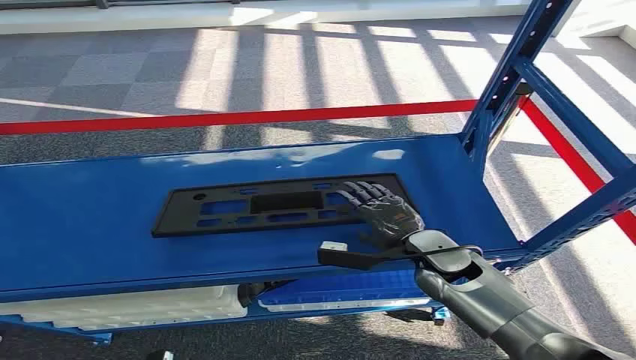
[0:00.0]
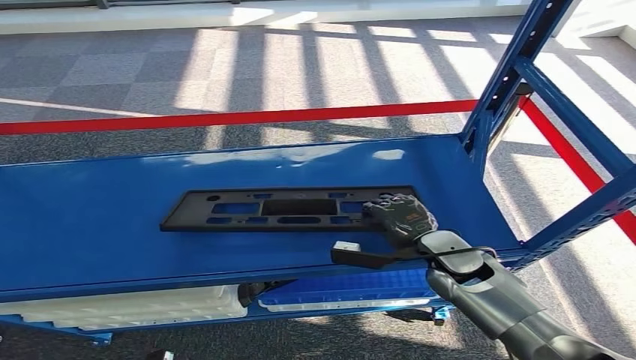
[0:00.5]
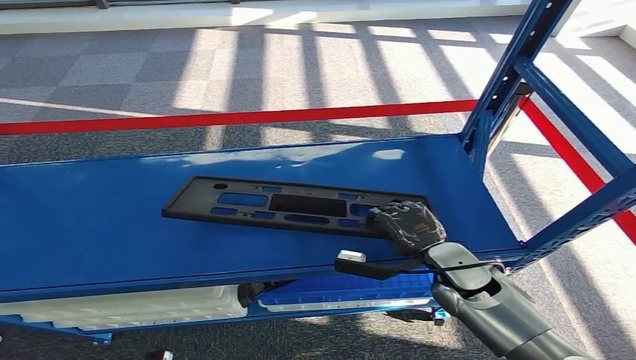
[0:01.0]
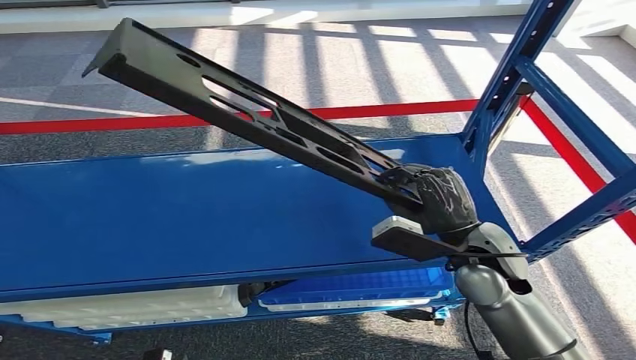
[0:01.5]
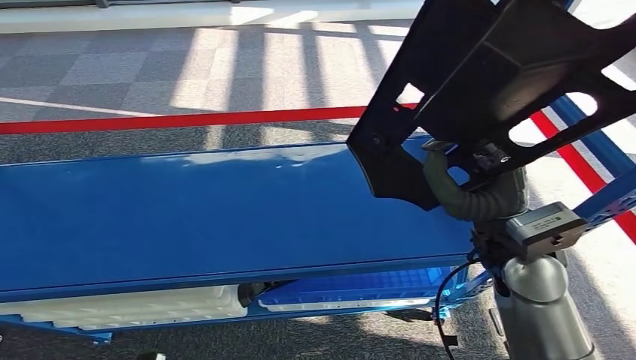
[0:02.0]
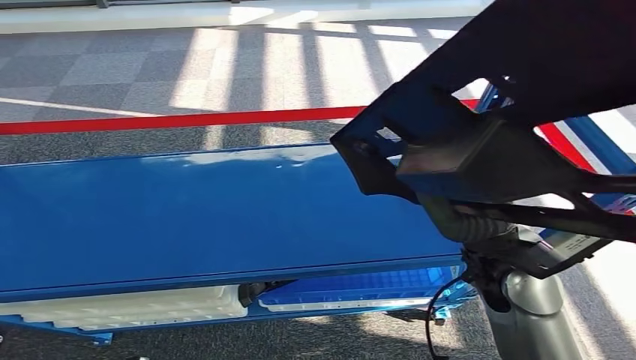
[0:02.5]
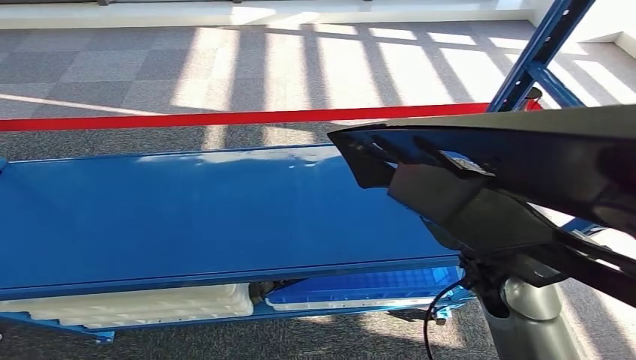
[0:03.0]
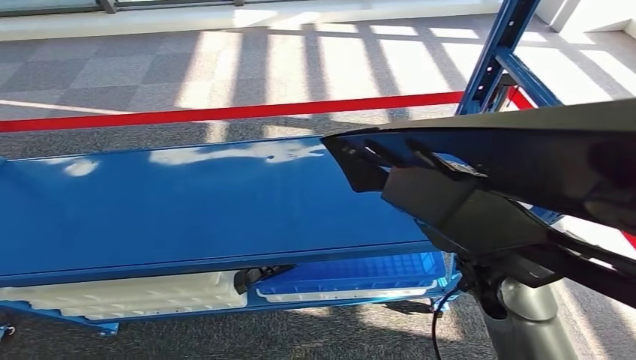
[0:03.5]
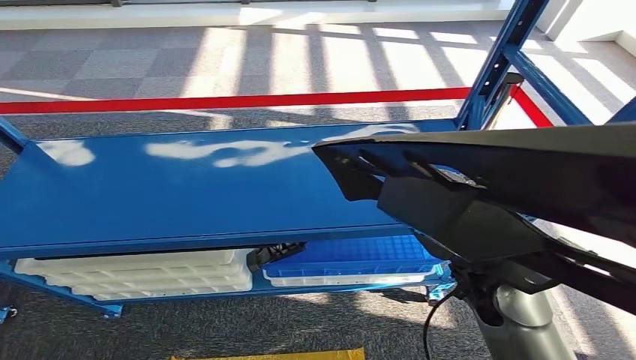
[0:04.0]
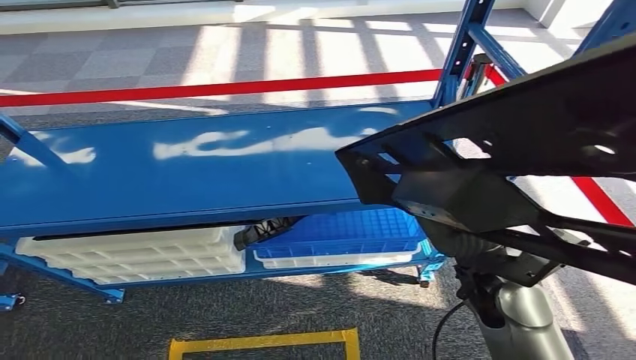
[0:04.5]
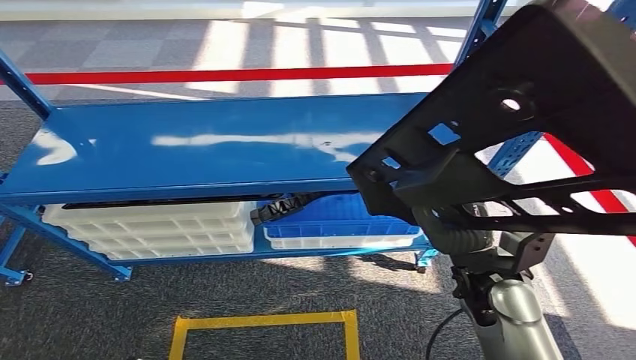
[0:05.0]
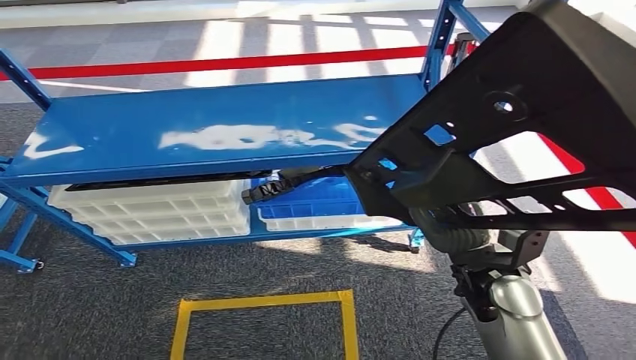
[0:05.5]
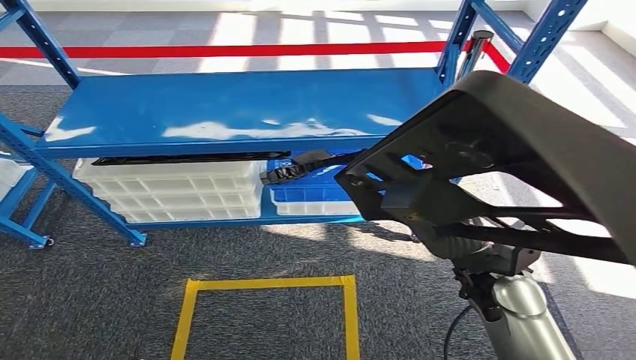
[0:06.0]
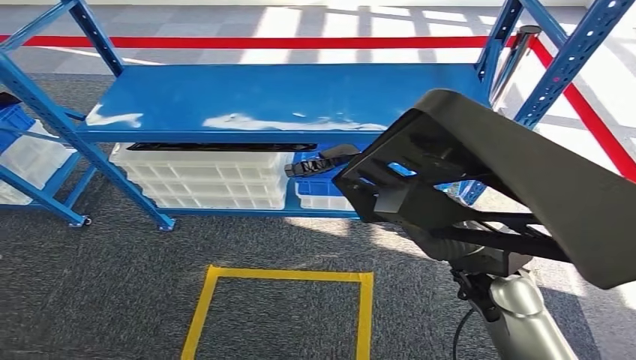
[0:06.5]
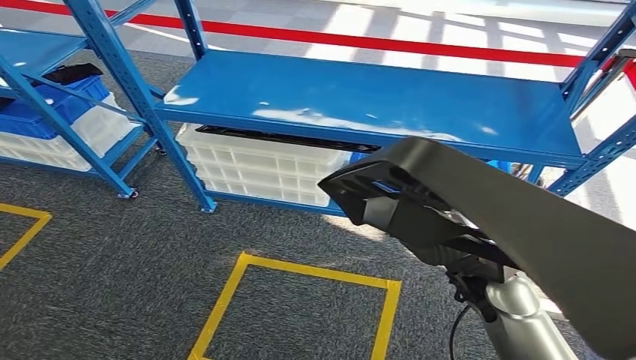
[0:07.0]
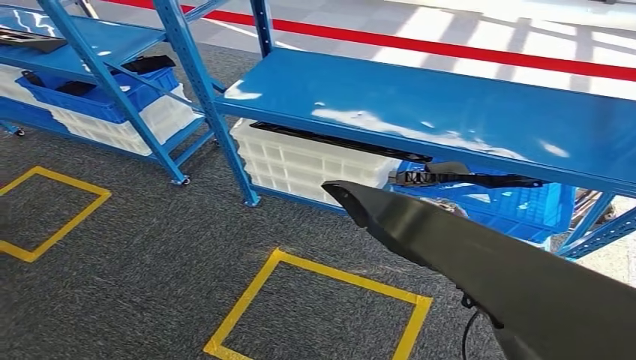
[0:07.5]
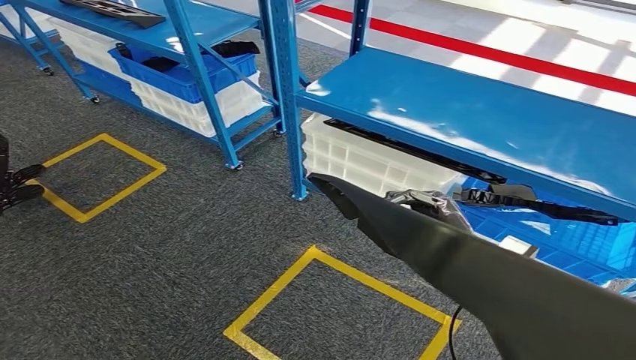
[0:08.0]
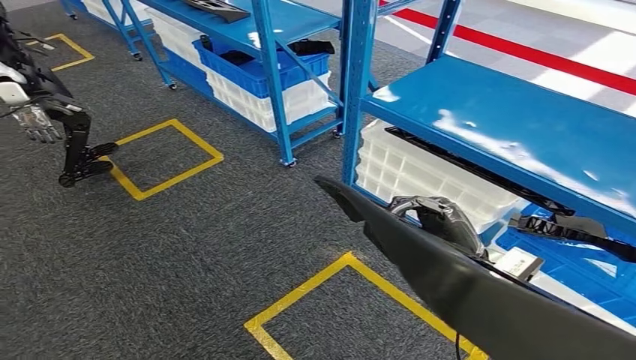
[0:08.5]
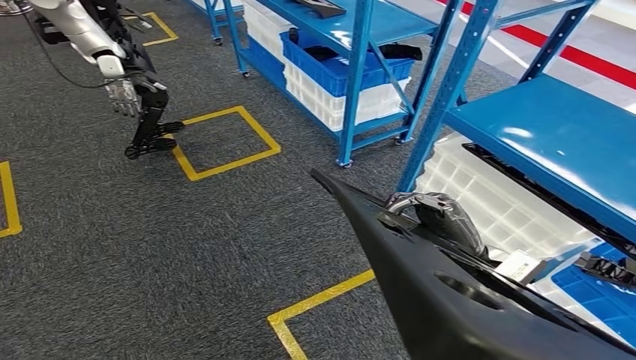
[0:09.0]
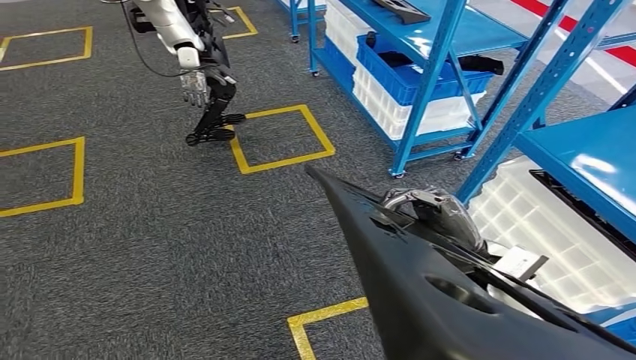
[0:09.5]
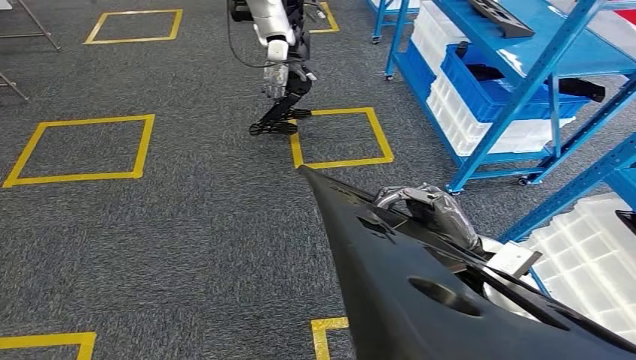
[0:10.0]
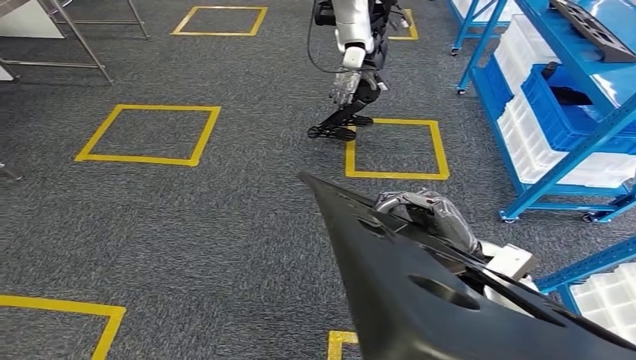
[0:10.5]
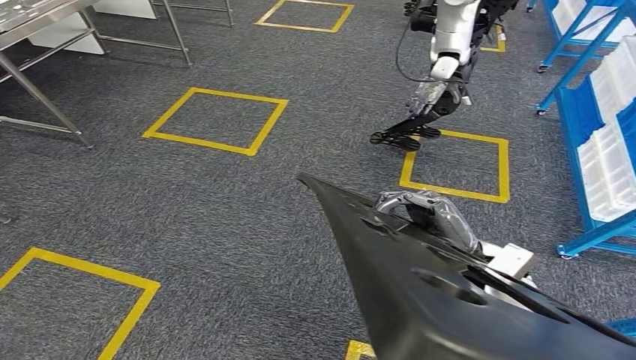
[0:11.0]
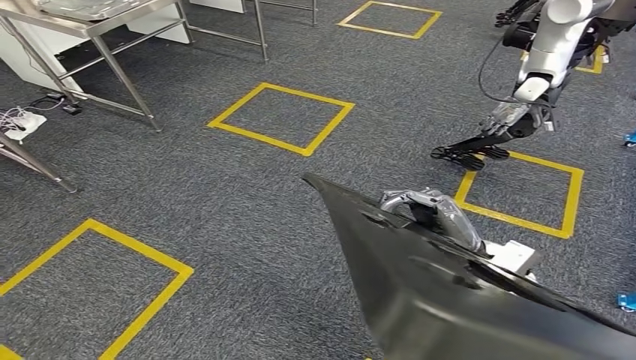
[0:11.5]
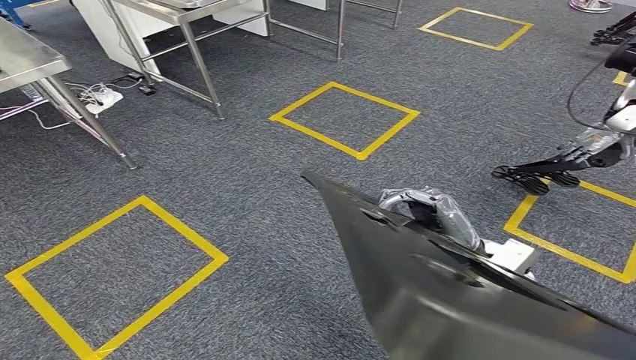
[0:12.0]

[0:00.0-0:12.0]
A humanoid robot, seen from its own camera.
Step, 0:00.0 to 0:02.5: Pick up the small component from the shelf.

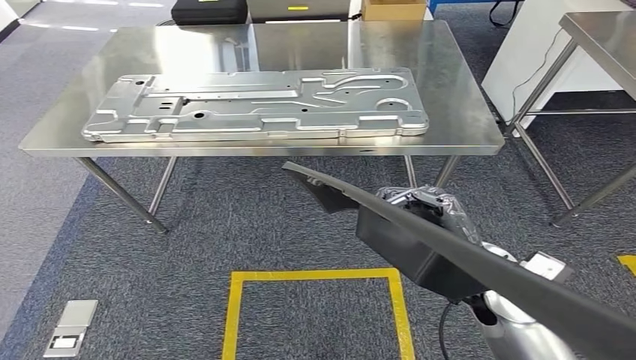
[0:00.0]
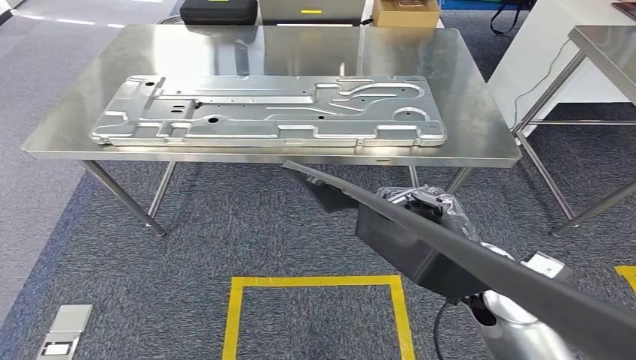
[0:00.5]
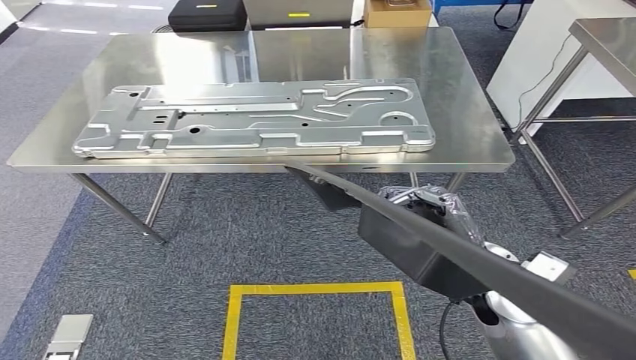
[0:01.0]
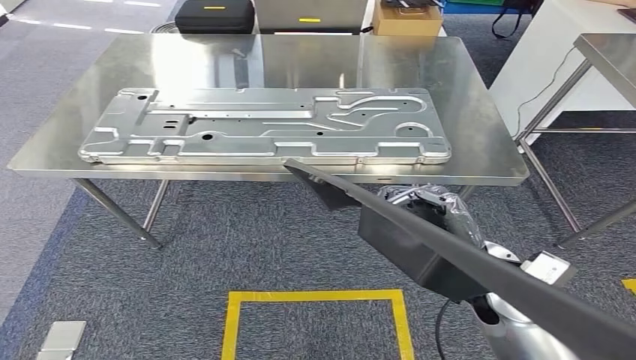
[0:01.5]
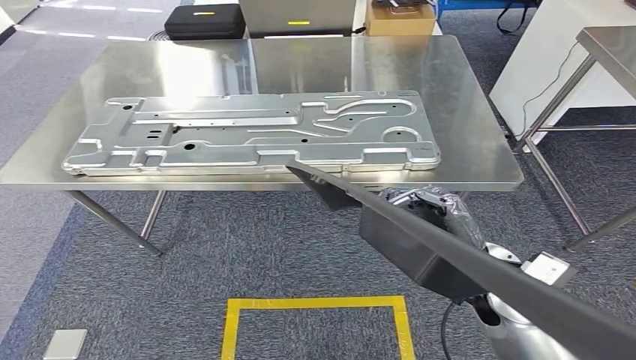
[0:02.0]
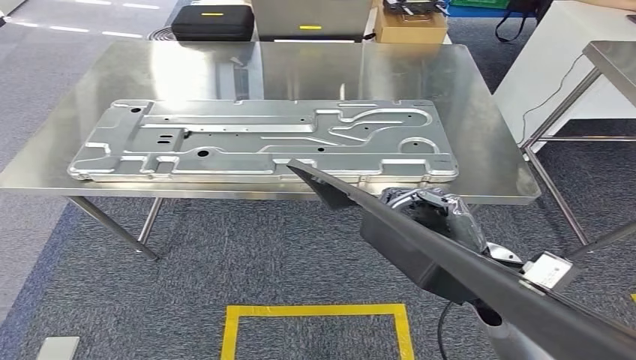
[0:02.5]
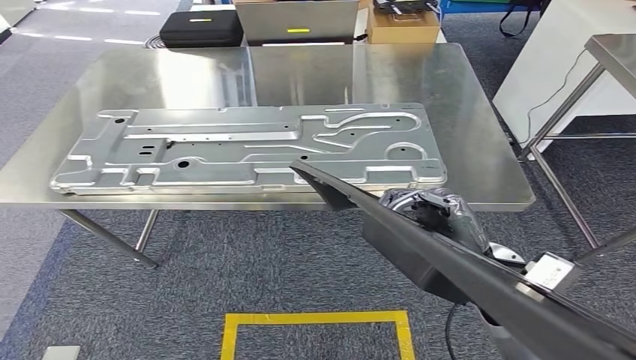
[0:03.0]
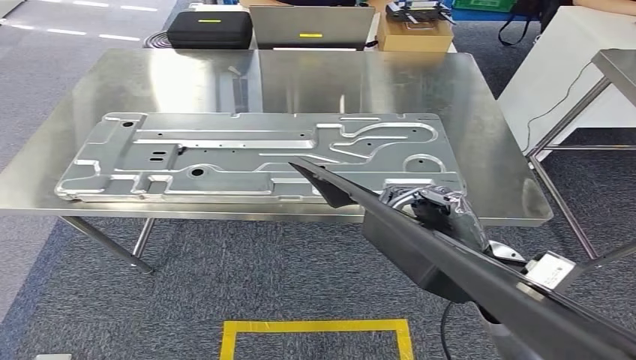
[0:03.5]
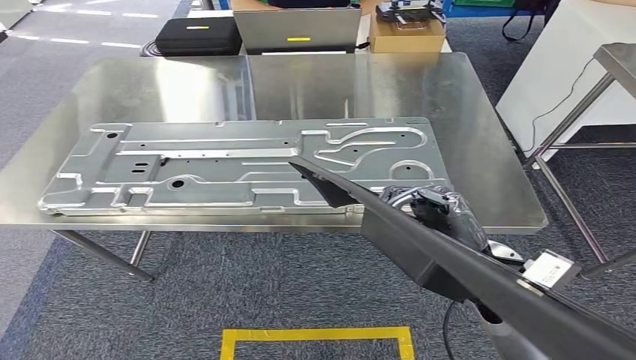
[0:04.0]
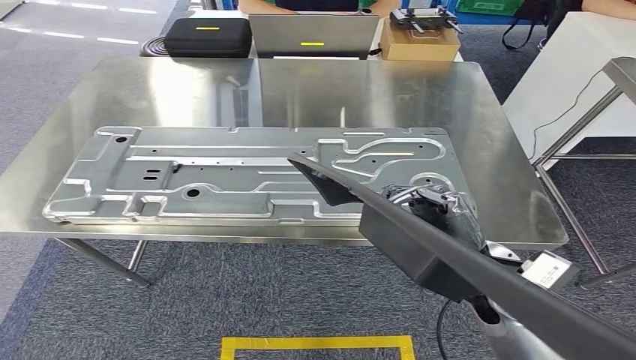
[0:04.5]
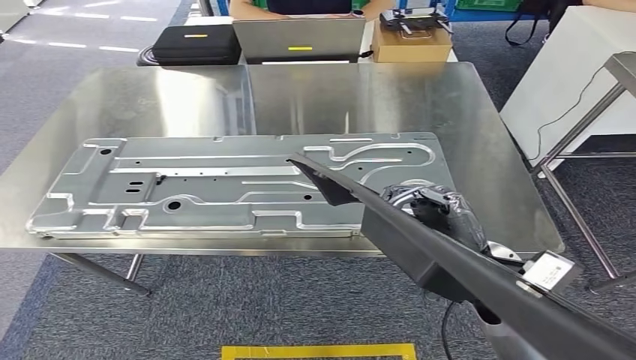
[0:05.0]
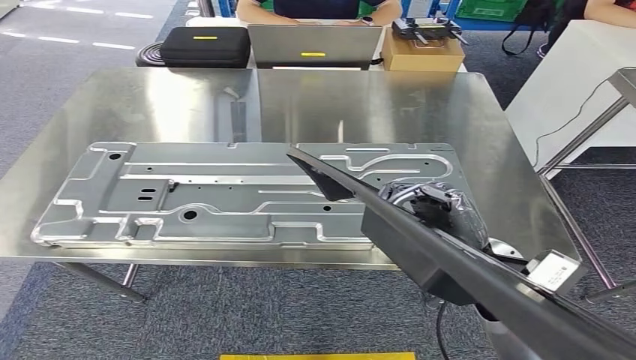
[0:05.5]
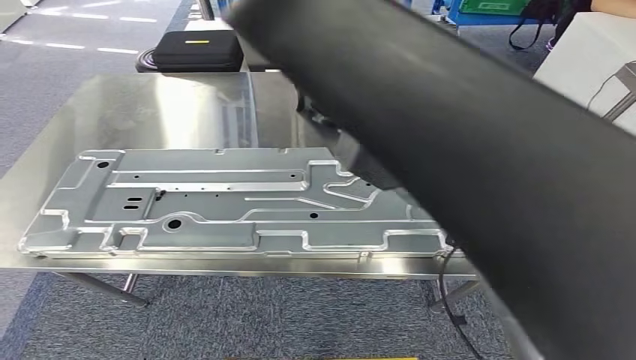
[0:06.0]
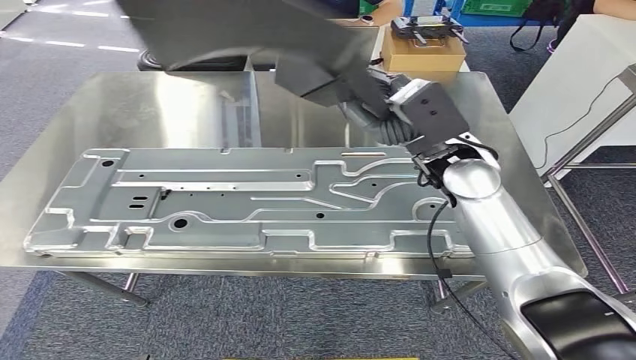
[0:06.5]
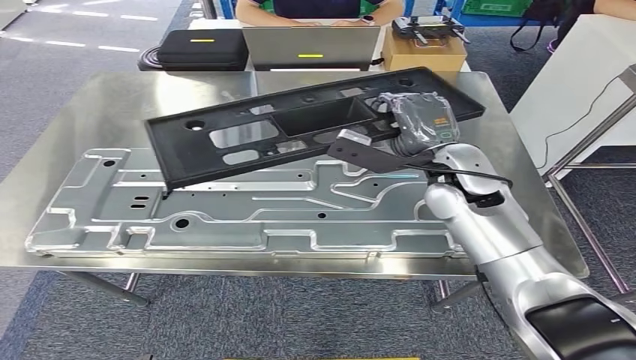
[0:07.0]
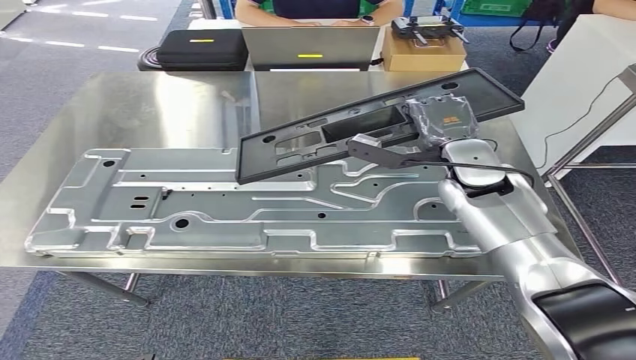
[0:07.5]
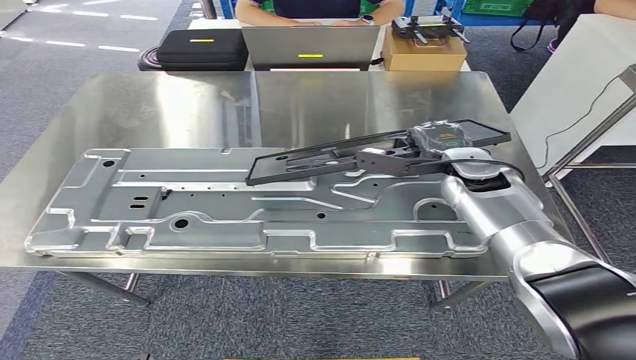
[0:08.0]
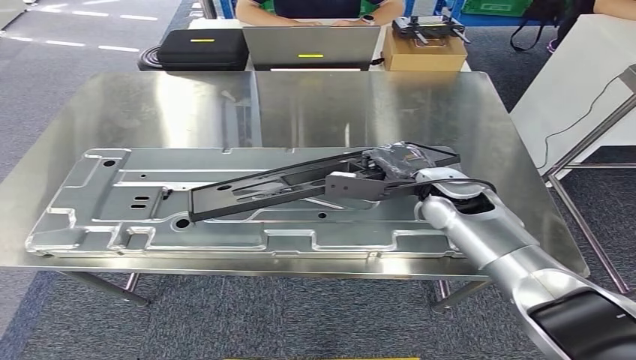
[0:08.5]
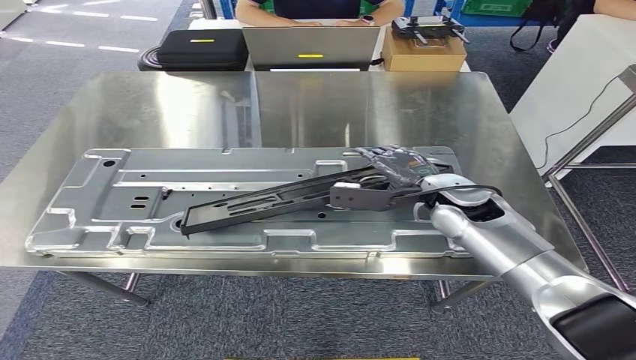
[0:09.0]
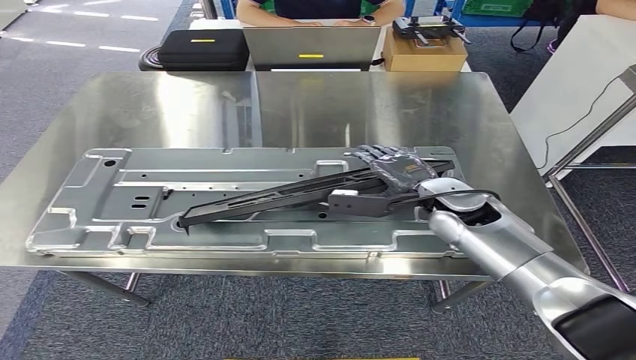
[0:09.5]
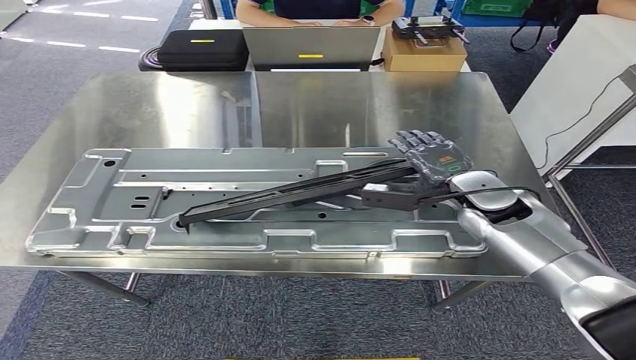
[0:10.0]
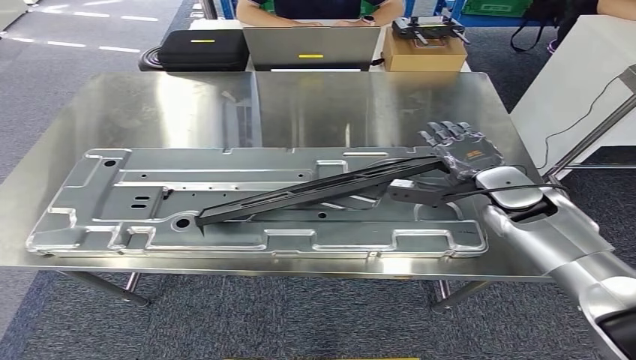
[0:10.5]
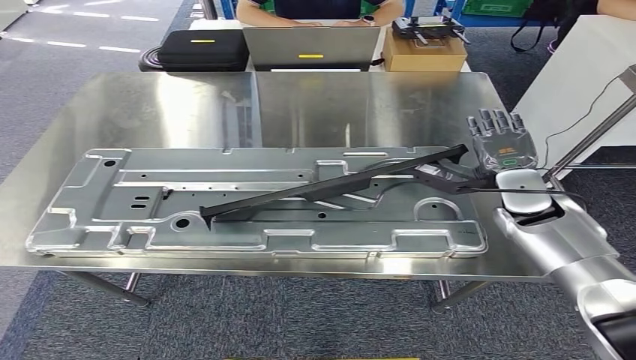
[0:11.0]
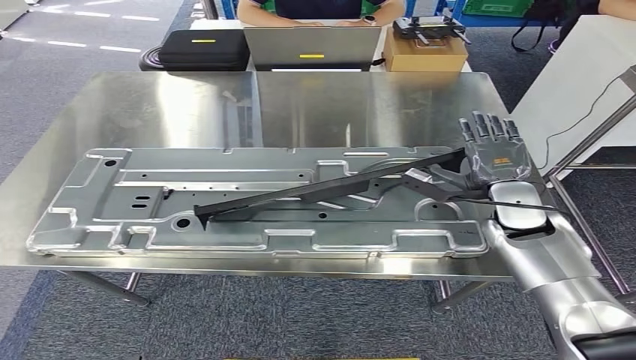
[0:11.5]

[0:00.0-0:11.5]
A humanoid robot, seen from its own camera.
Step, 0:00.0 to 0:04.0: Bring the small component to the front of the workbench.
0:09.5 to 0:11.5: The right hand moves to the right, approximately 10 cm.
